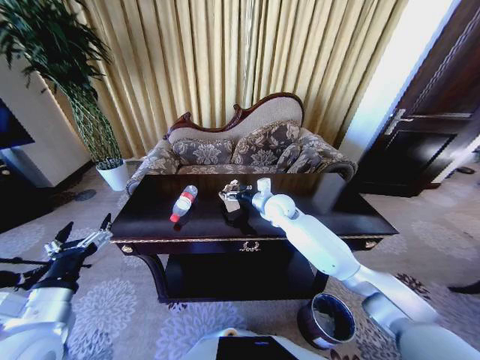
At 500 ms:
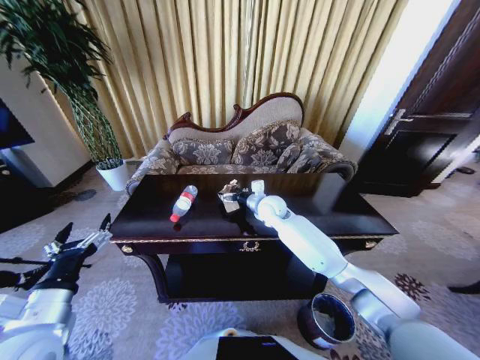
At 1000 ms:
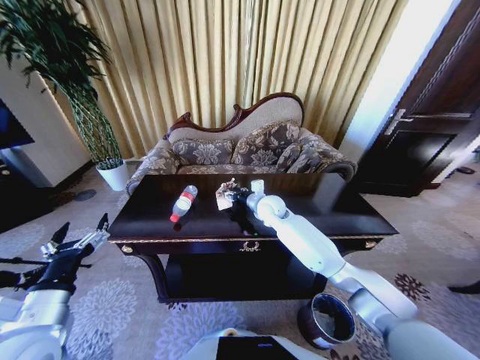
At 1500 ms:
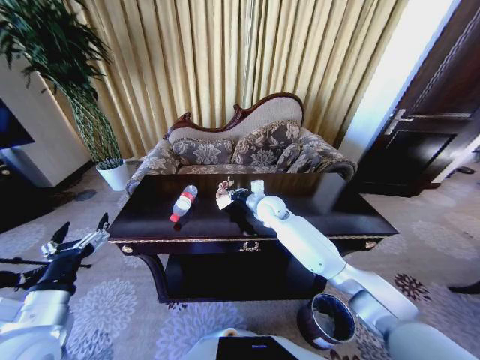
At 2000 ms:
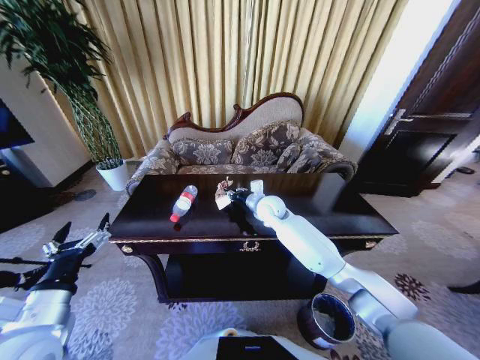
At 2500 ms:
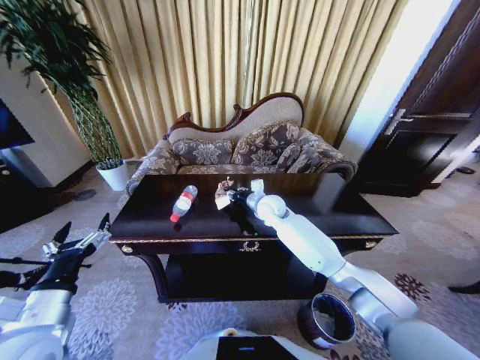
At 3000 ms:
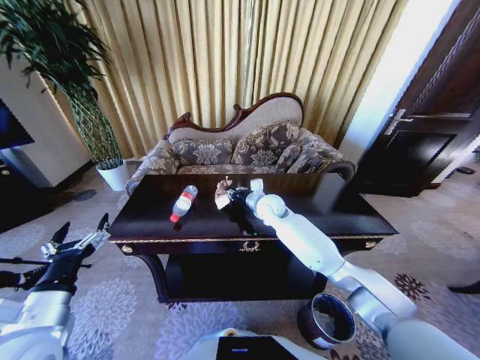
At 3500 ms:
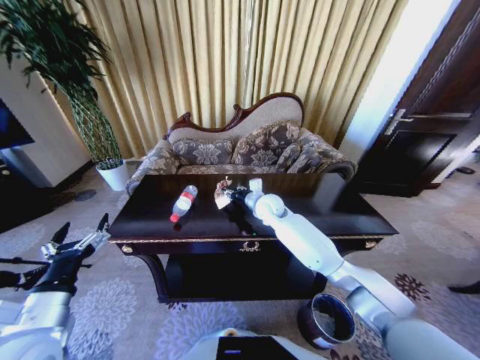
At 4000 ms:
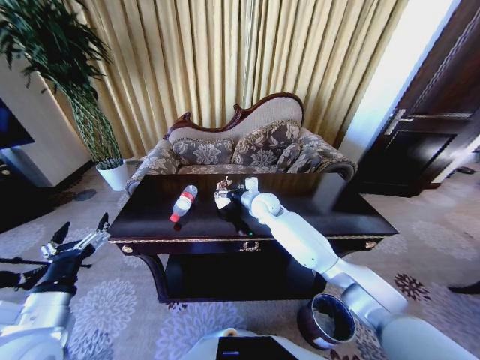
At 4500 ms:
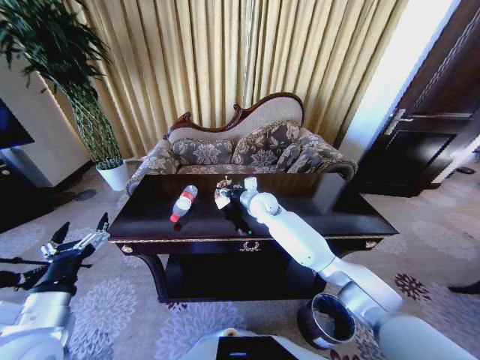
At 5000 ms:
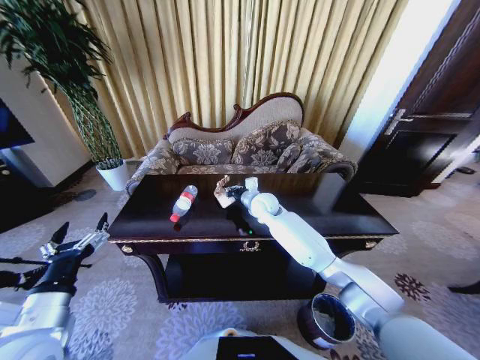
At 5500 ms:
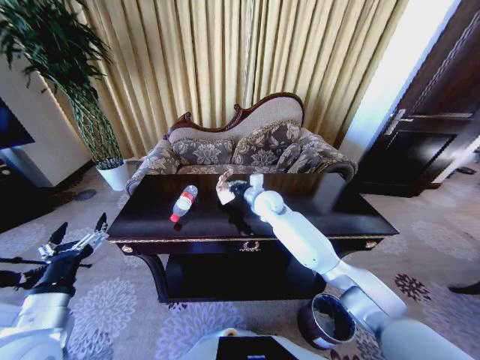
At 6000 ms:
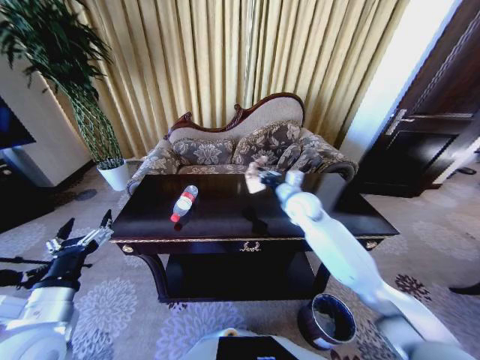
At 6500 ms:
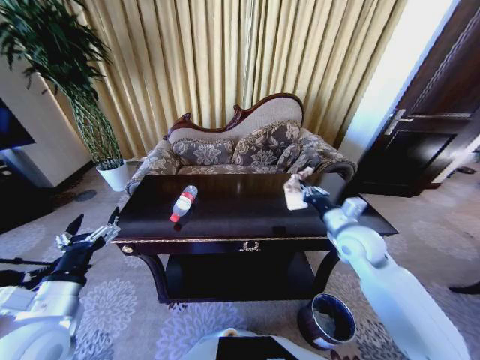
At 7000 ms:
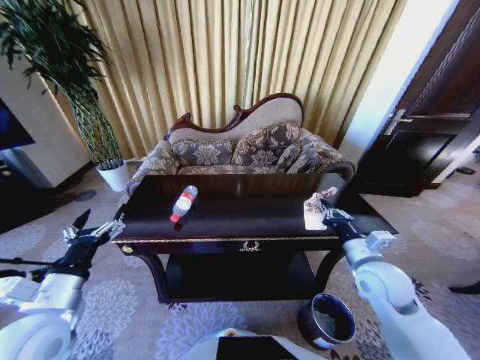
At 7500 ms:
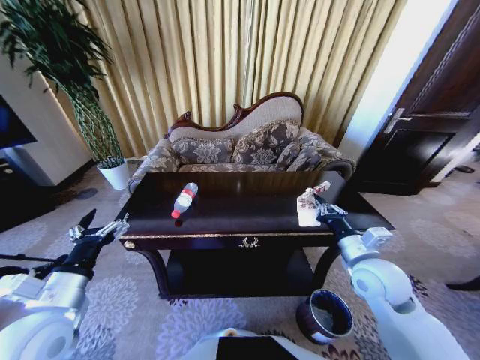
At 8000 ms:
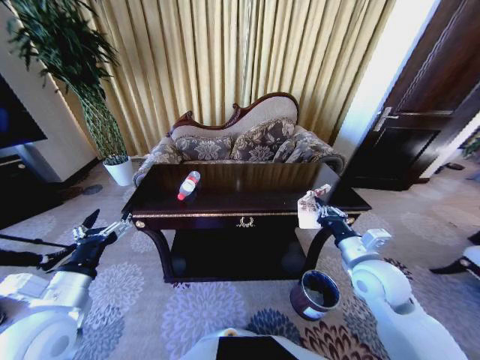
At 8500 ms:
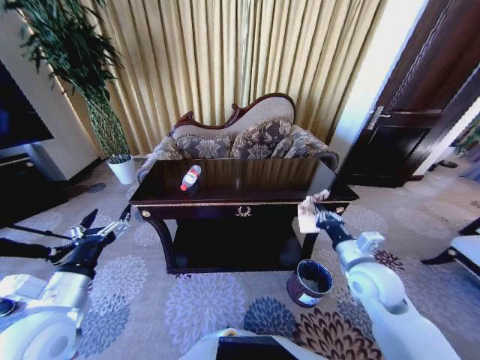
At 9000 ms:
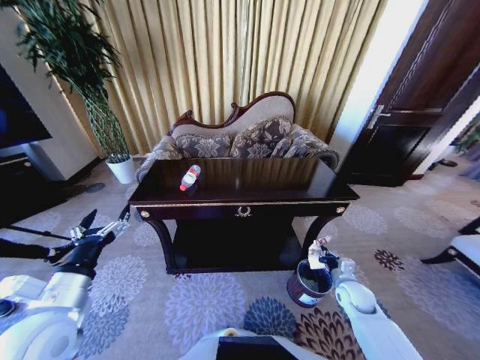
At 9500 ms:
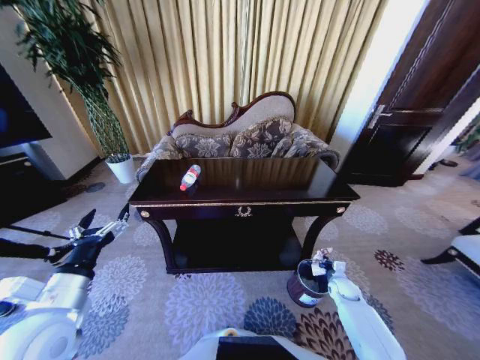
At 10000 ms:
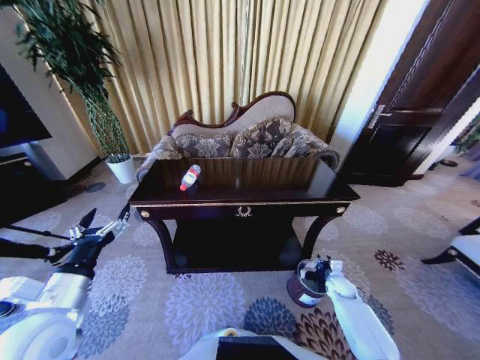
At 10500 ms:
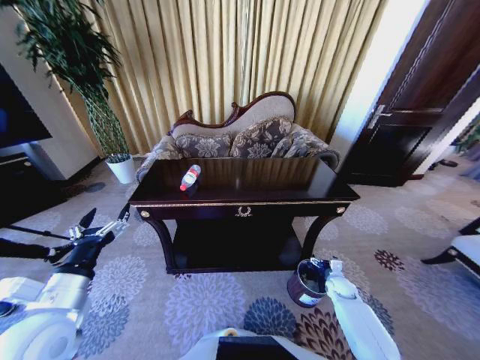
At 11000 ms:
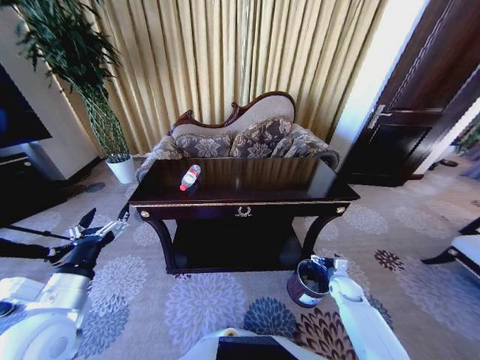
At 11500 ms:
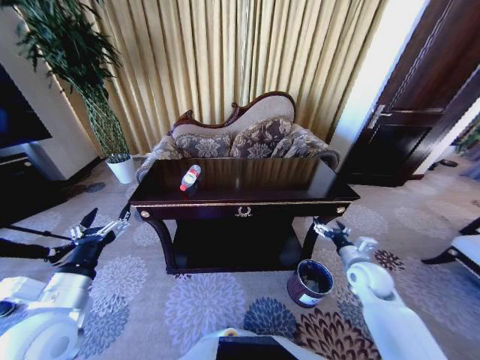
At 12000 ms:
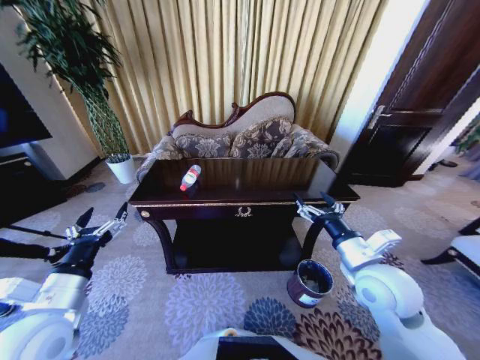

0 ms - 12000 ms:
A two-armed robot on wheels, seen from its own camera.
Task of the whole recording: Move to the front of the table and place the trash on the table into the trash bin.
0 ms - 2000 ms: The right gripper closes up.
2000 ms - 4000 ms: The right gripper opens up.
4000 ms - 6000 ms: The right gripper heads to the right, covering approximately 10 cm, and closes its fingers.
6000 ms - 8000 ms: The right gripper travels backward and to the right by about 25 cm.
8000 ms - 10000 ms: The right gripper is displaced downward by about 30 cm, and opens its fingers.
10000 ms - 12000 ms: The right gripper is displaced upward by approximately 35 cm, and opens up.

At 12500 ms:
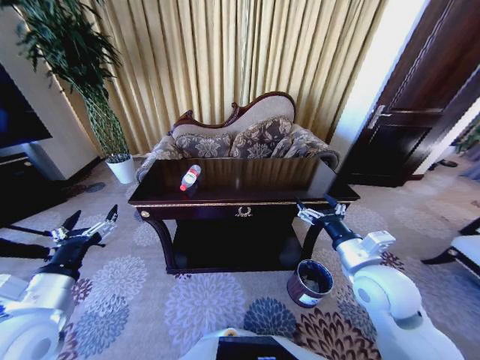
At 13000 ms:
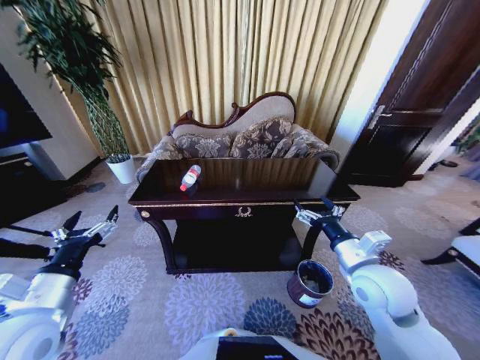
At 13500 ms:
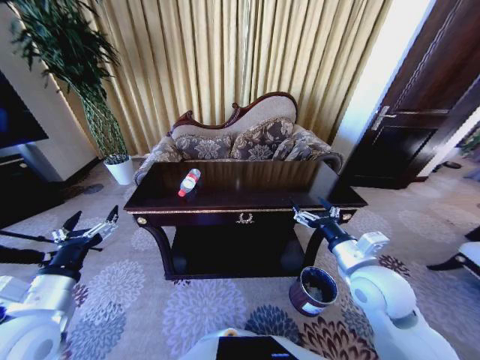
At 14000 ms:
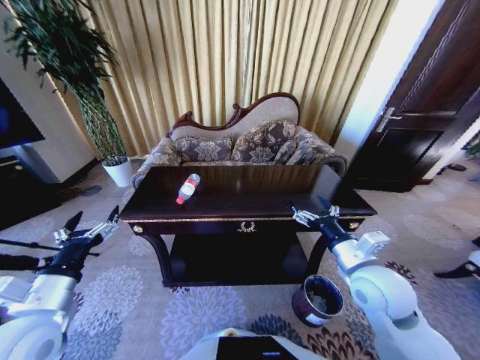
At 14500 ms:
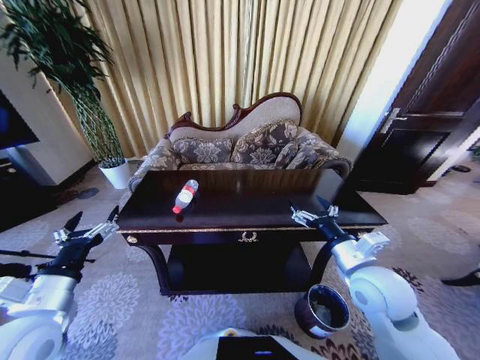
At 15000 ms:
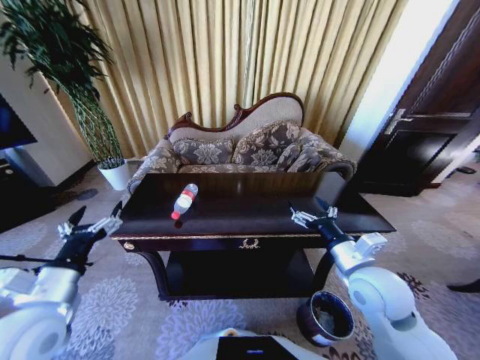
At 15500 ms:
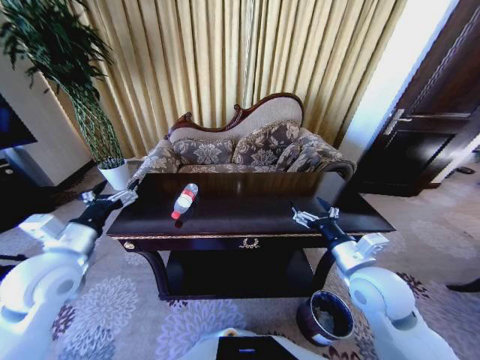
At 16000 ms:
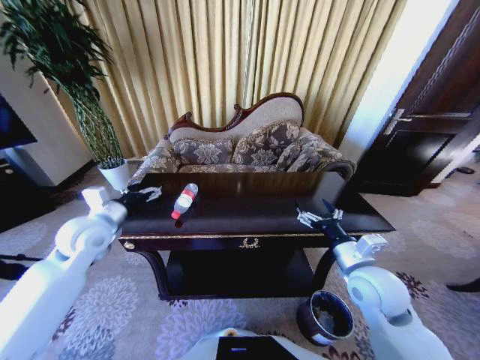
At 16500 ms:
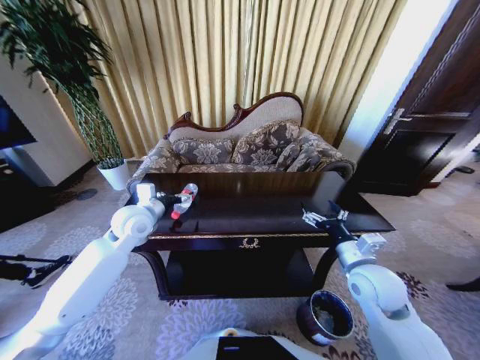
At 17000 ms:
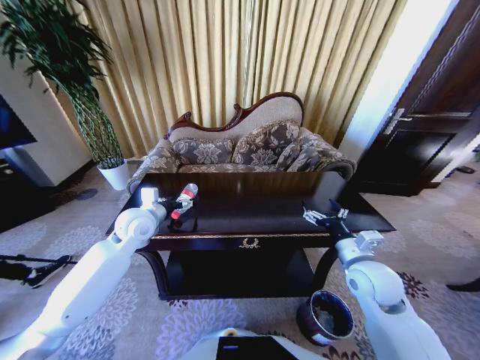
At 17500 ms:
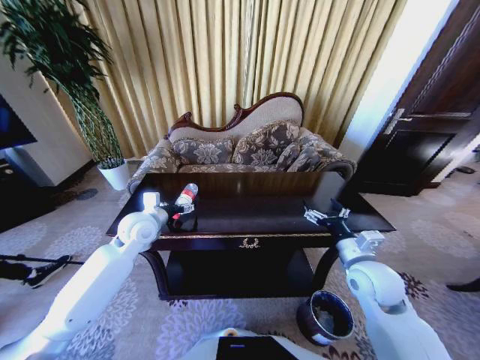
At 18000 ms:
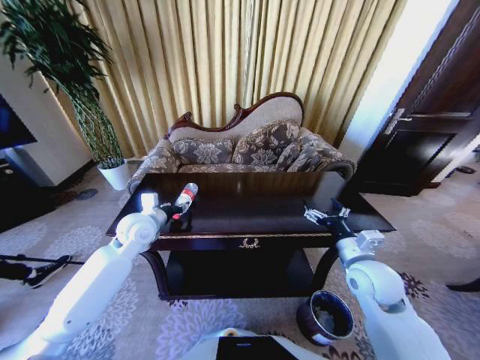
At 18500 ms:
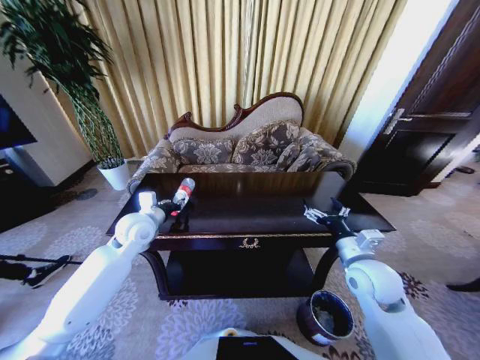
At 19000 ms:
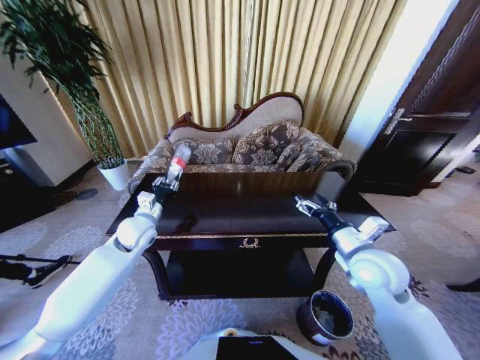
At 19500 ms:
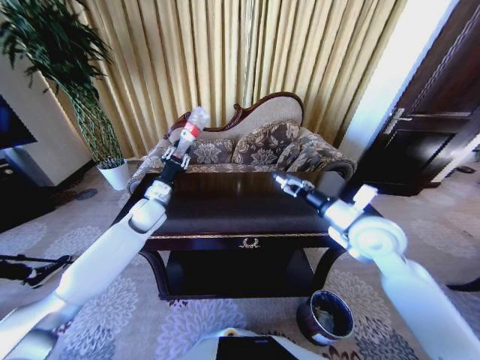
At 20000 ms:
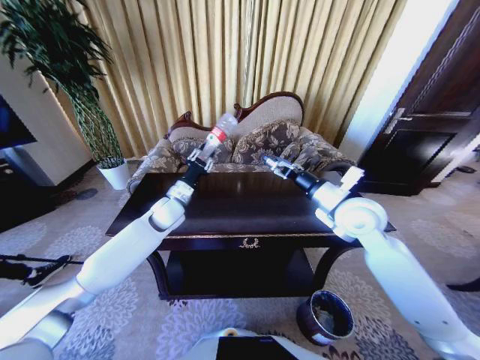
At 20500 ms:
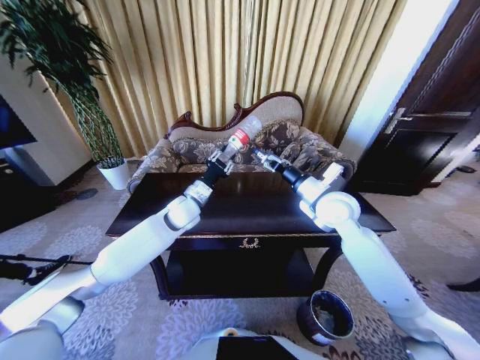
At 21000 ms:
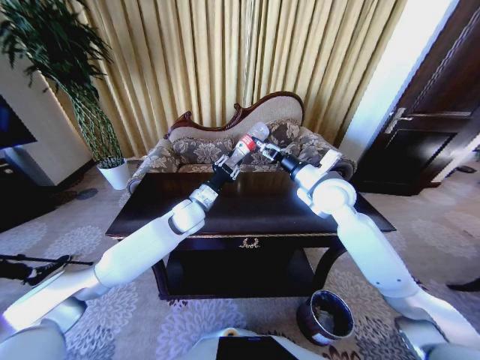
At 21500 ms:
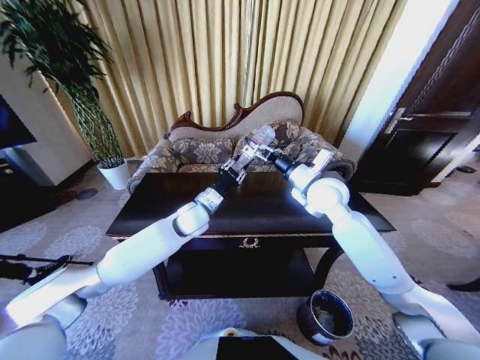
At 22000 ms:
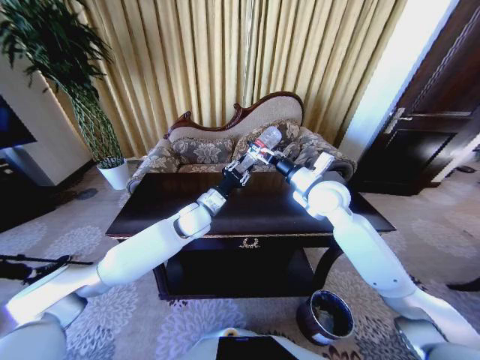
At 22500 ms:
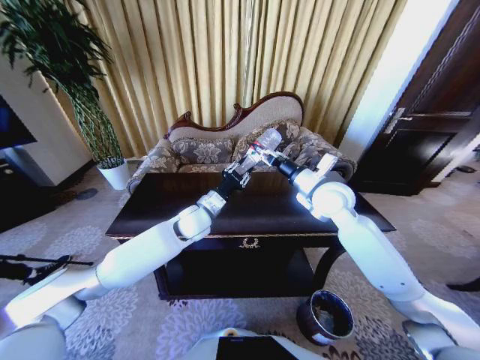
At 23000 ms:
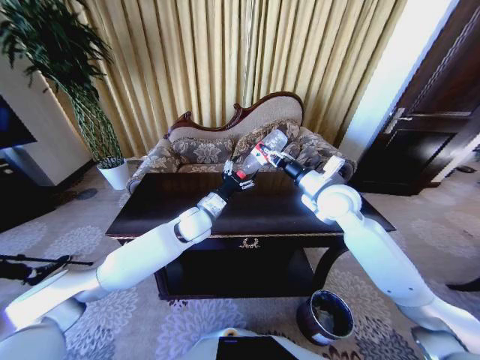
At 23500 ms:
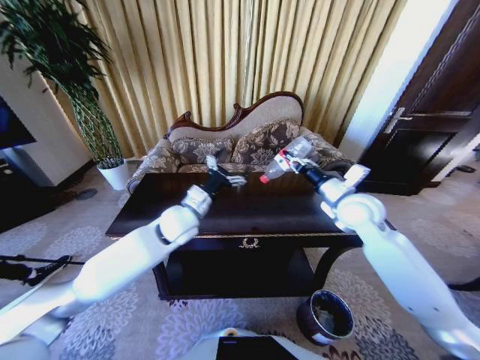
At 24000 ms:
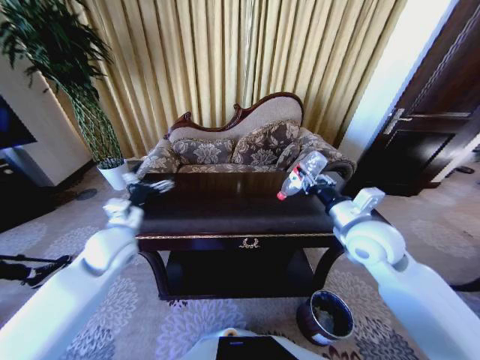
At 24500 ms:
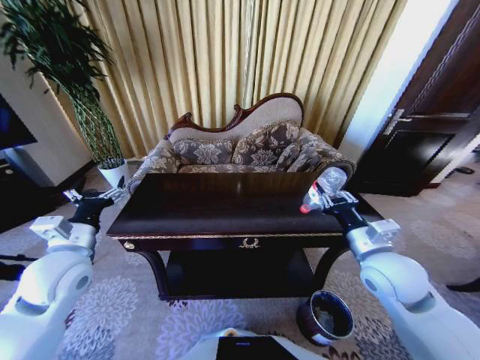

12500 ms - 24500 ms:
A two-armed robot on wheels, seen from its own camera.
Task of the whole recording: Move to the front of the table and place the trash on the table into the trash bin.
14500 ms - 16500 ms: The right gripper changes place by some 5 cm, while the left gripper is displaced forward by approximately 25 cm.
16500 ms - 18500 ms: The left gripper closes up.
18500 ms - 20500 ms: The left gripper is displaced to the right and forward by some 15 cm, while the right gripper is displaced forward, upward and to the left by roughly 20 cm.
20500 ms - 22500 ms: The right gripper closes up.
22500 ms - 24500 ms: The right gripper shifts roughly 15 cm backward, while the left gripper travels to the left and backward by approximately 30 cm, and opens.

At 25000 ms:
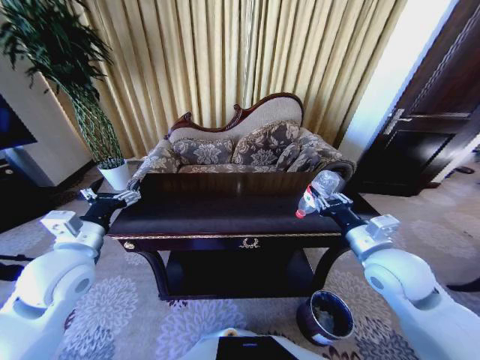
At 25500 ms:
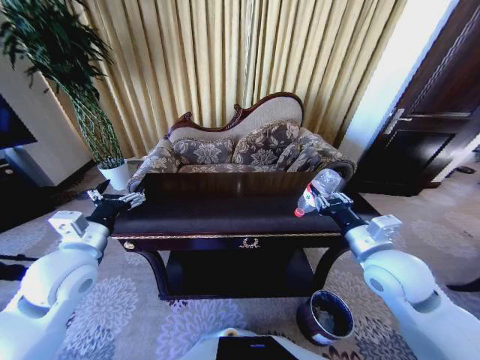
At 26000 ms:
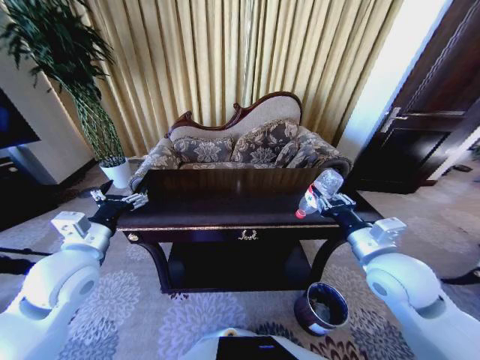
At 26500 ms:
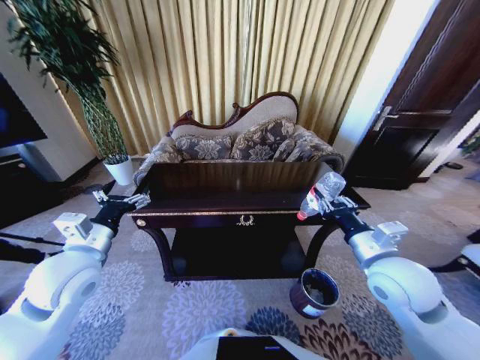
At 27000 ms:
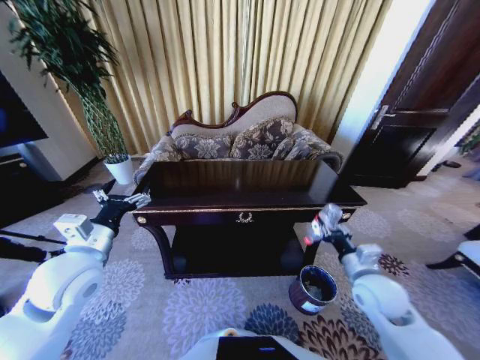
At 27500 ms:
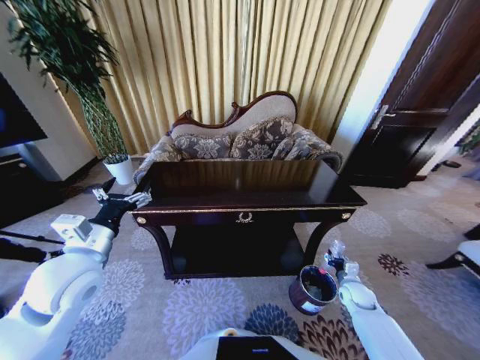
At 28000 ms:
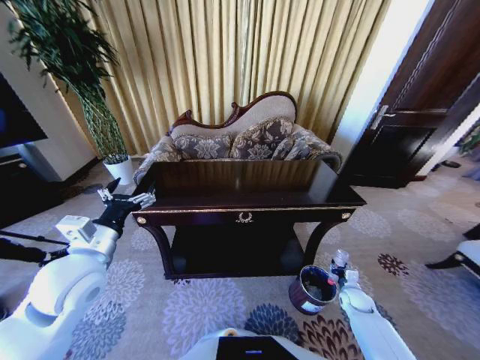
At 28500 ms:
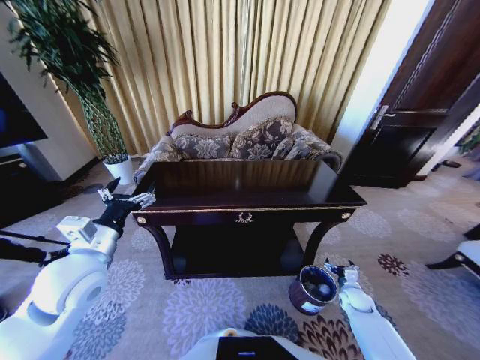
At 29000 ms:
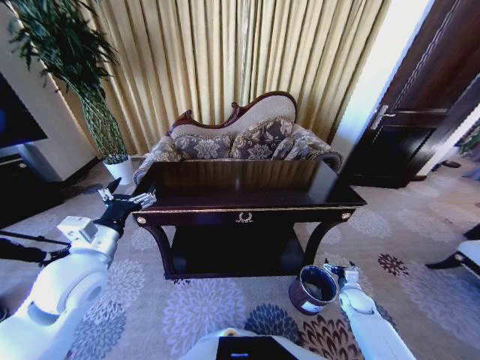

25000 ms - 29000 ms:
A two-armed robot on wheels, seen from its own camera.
Task of the whole recording: Move to the front of the table and place the trash on the table into the trash bin.
25000 ms - 27000 ms: The right gripper travels downward by some 15 cm.
27000 ms - 29000 ms: The right gripper is displaced downward and to the right by approximately 25 cm, and opens up.
